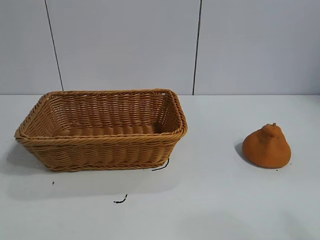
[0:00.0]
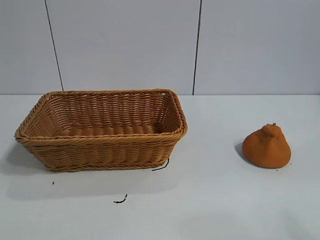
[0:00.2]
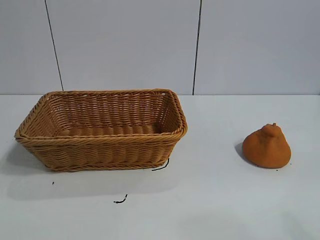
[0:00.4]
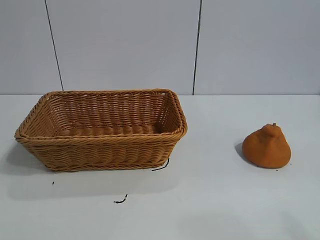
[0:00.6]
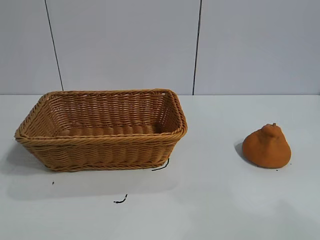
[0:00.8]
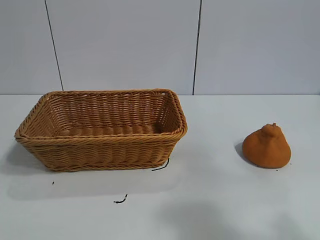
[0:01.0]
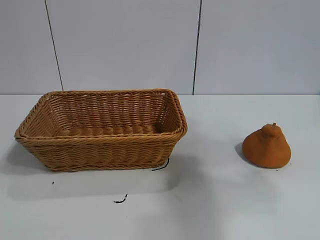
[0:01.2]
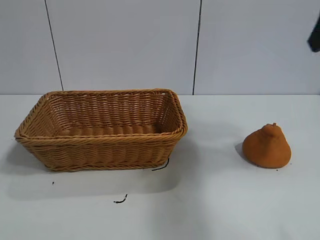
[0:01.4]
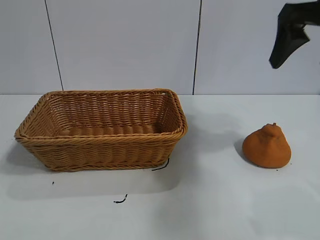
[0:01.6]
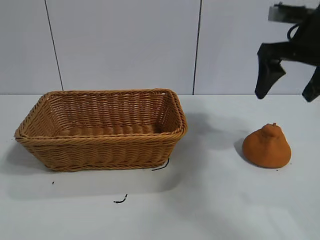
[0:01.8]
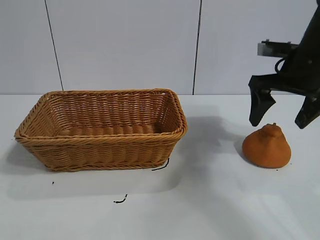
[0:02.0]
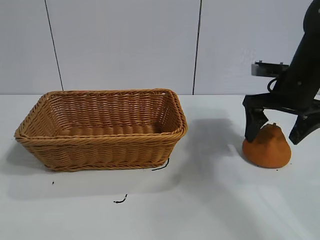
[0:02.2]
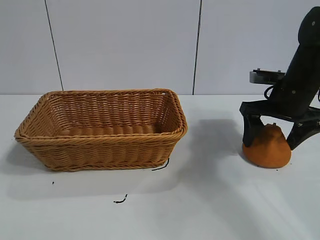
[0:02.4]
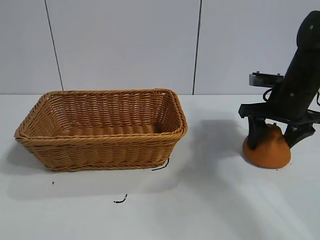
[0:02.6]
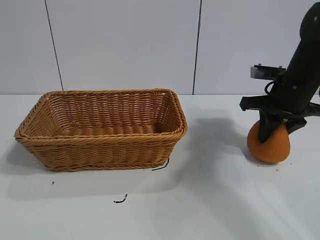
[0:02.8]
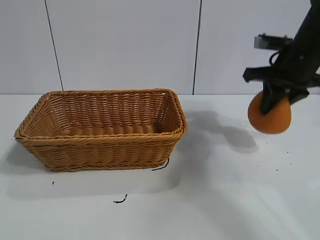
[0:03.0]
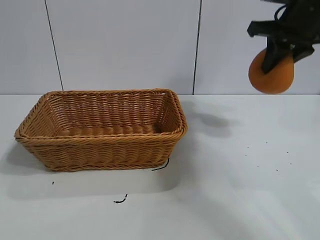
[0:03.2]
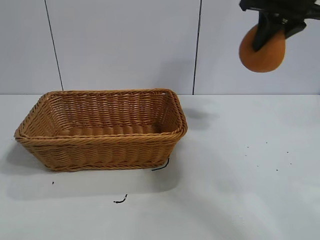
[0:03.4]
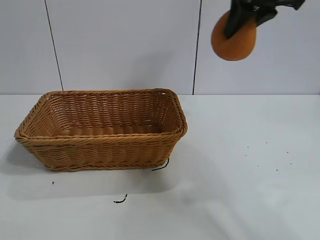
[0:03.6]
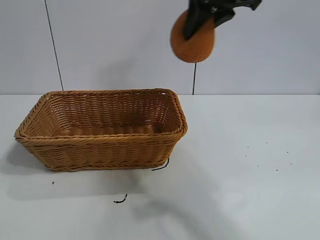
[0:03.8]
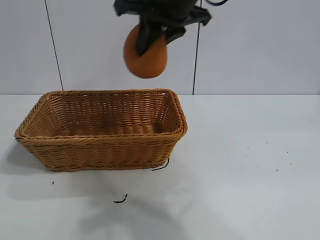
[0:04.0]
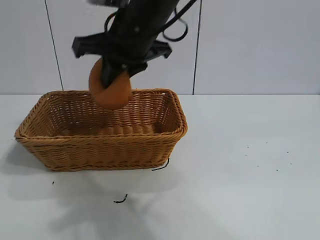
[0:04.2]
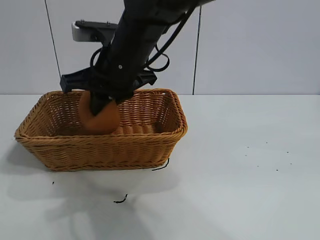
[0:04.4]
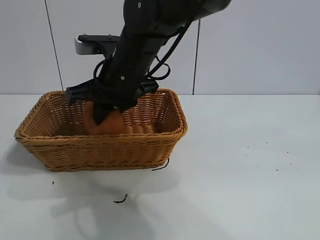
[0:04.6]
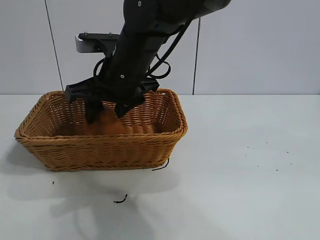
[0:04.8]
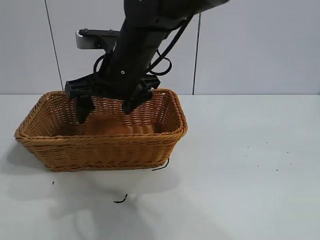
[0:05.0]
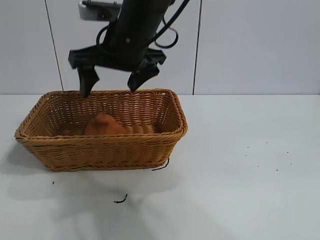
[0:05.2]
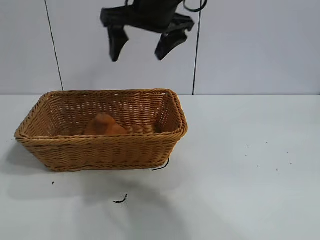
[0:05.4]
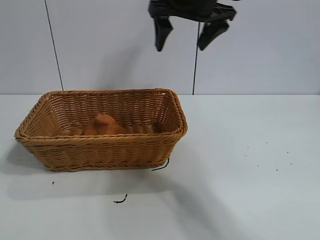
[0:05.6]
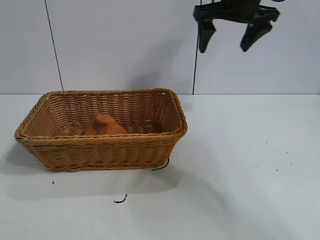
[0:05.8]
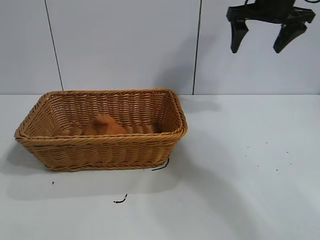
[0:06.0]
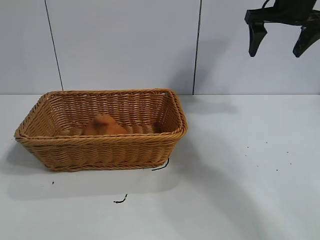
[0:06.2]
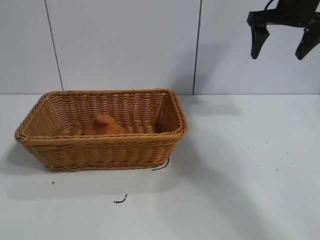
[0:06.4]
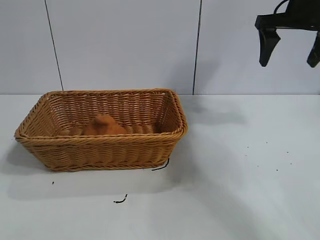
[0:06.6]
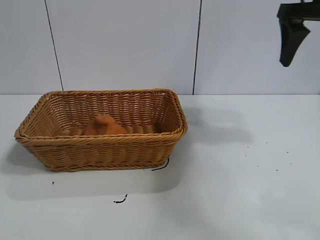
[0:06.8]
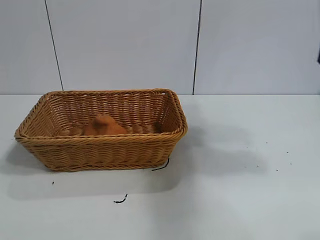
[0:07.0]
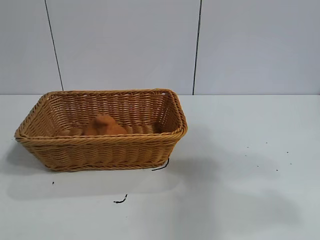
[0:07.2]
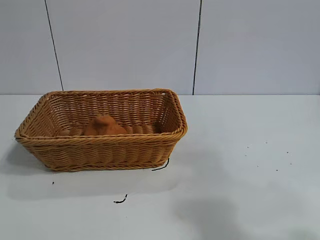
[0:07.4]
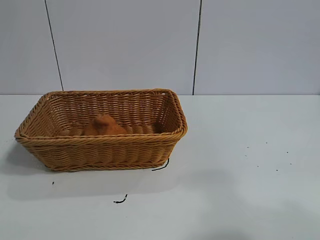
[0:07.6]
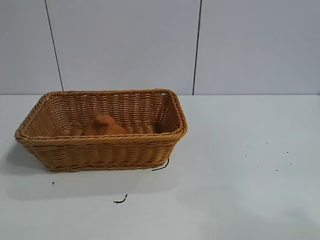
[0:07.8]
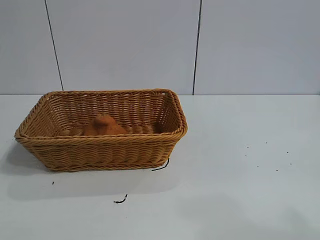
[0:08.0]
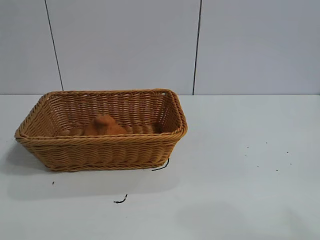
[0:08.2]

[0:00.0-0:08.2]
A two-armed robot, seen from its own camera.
Task of the whole recording: pick up the orange and put it into the basket.
Step, 0:00.6 to 0:02.8: Grasp the orange with right gripper.
Step, 0:03.0 to 0:05.0: Place the orange in the basket with right gripper.

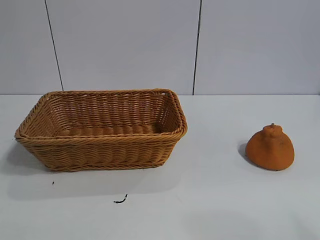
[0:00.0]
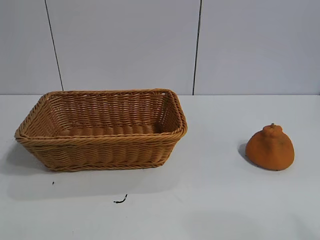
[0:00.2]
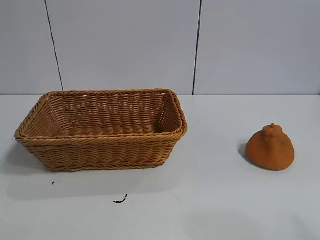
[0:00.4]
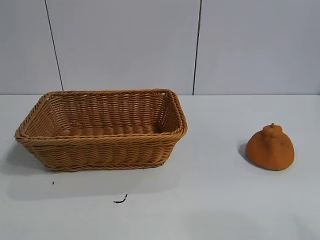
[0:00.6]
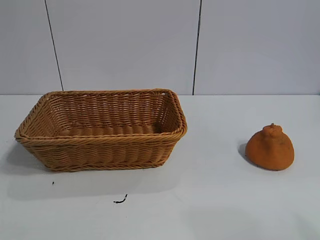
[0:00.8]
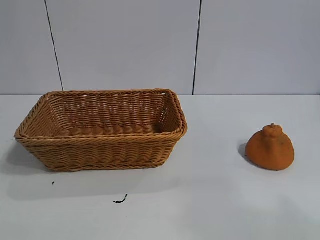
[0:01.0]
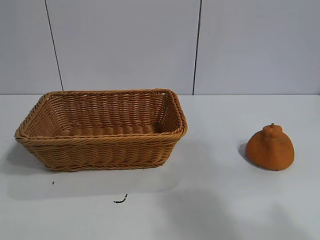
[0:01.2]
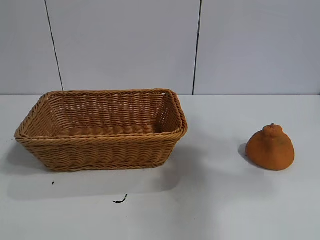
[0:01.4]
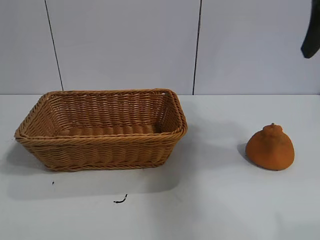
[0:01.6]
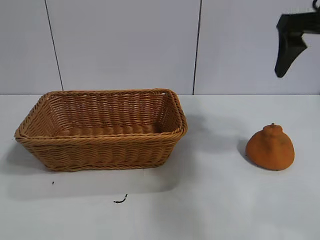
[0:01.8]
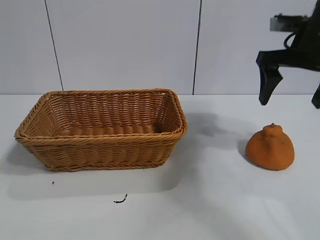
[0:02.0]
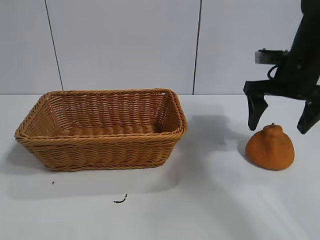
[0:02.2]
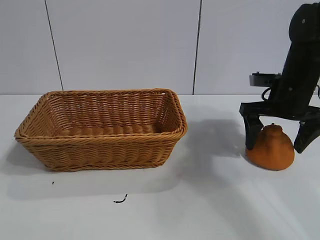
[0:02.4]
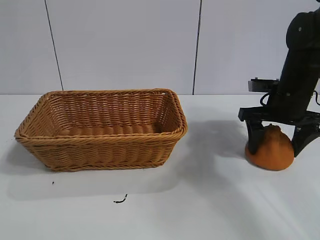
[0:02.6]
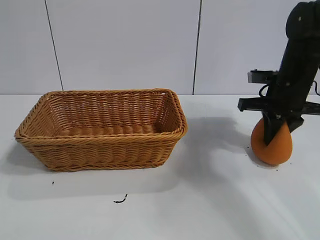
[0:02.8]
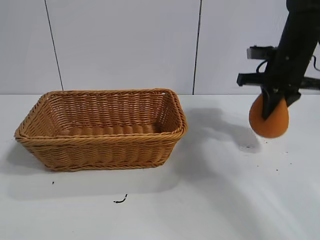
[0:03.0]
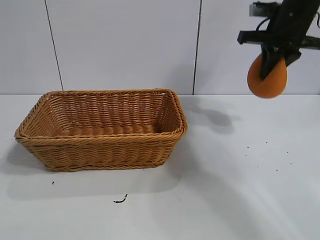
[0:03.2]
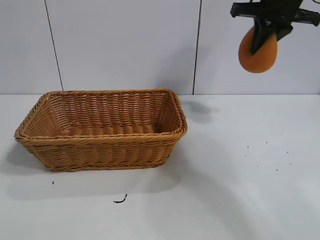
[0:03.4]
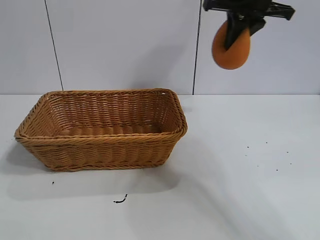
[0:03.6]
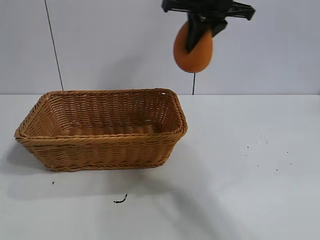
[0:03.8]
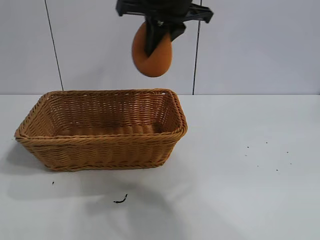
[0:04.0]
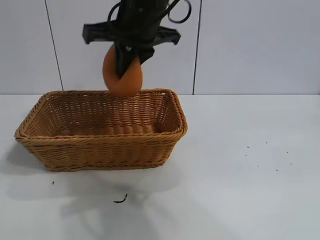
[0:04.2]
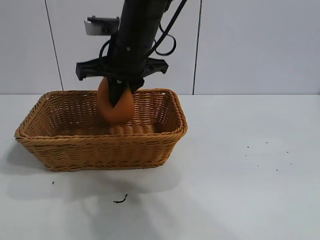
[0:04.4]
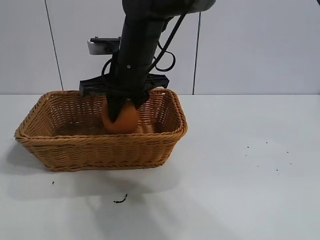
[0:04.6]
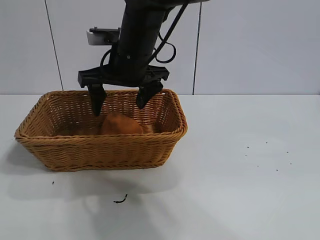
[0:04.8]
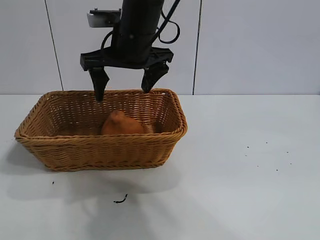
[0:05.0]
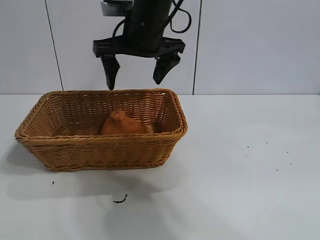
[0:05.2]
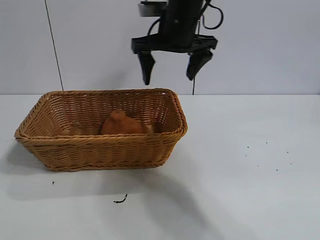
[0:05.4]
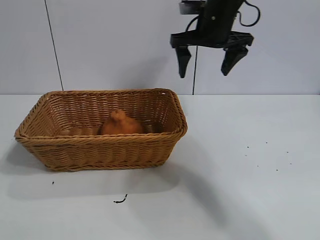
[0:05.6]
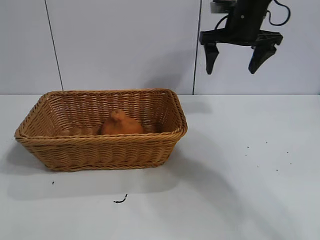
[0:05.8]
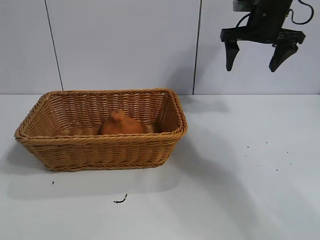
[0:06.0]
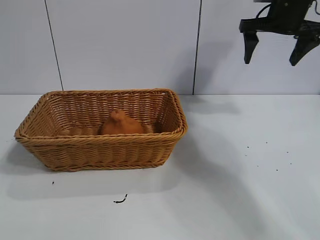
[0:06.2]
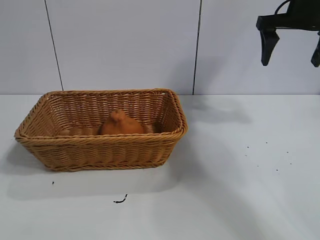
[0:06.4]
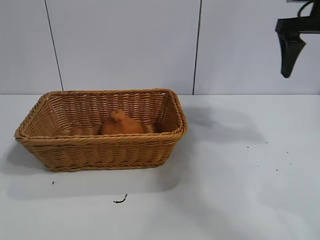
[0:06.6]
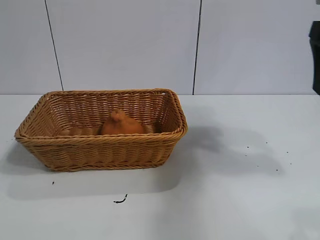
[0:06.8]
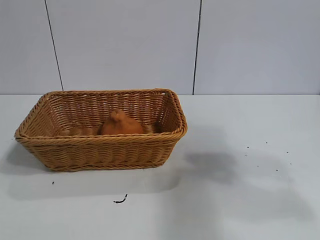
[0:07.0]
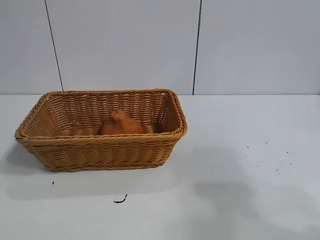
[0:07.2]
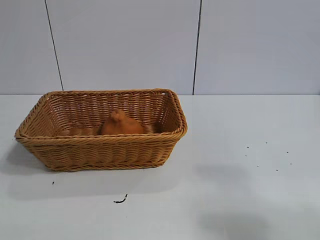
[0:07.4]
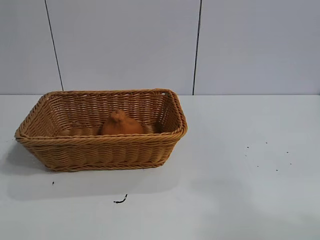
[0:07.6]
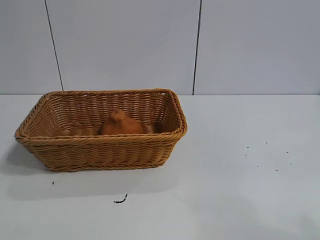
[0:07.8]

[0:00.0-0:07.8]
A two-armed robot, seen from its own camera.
Task of the whole recording: pick up the orange and put it into the basket.
Step, 0:00.8 to 0:02.6: Grasp the orange with right gripper.
Step, 0:03.0 to 0:04.8: Place the orange in the basket with right gripper.
